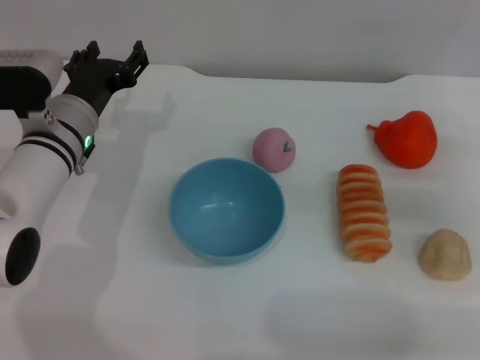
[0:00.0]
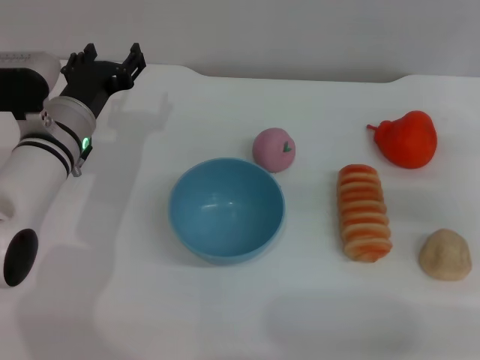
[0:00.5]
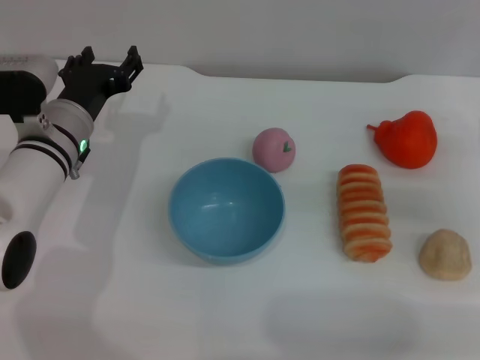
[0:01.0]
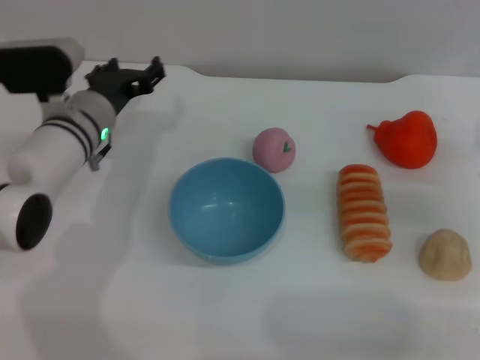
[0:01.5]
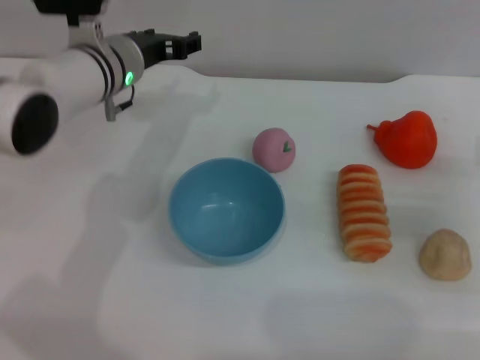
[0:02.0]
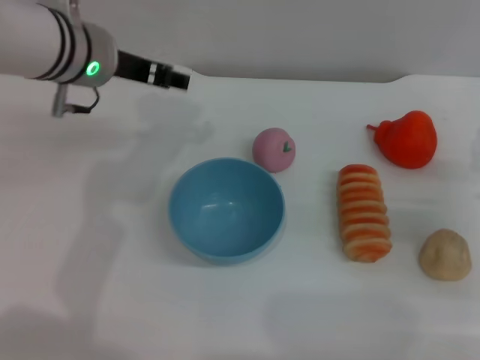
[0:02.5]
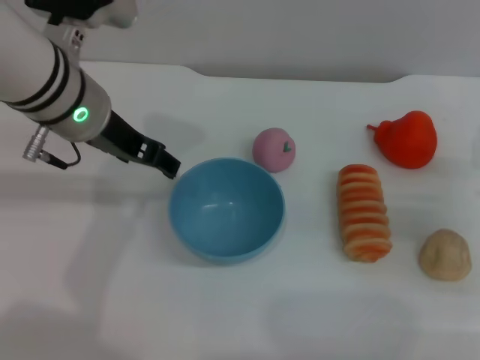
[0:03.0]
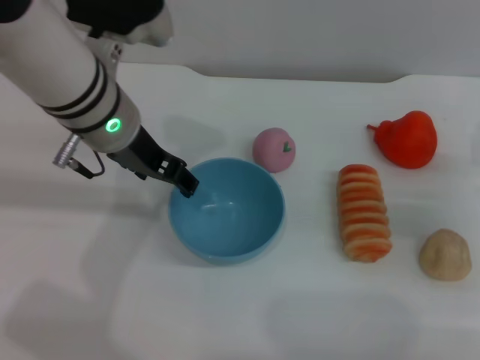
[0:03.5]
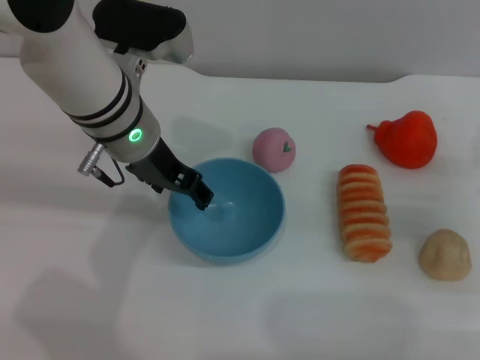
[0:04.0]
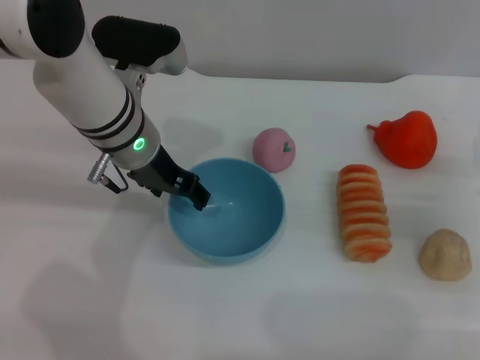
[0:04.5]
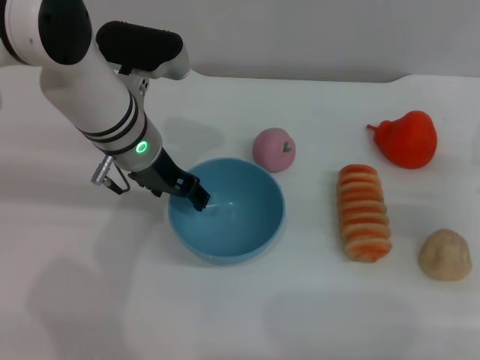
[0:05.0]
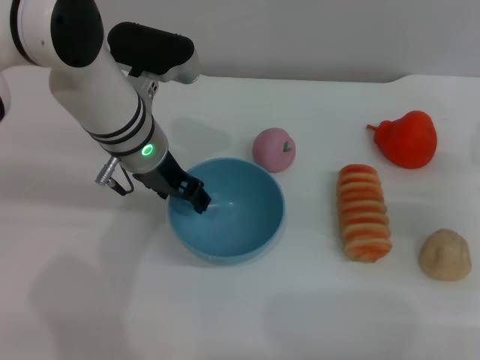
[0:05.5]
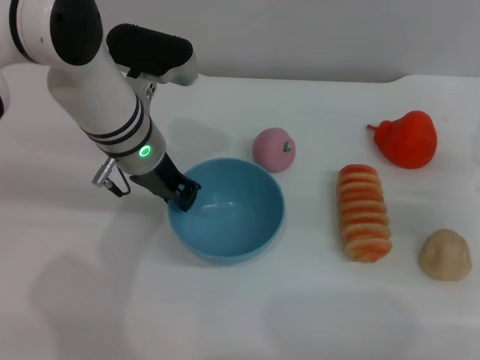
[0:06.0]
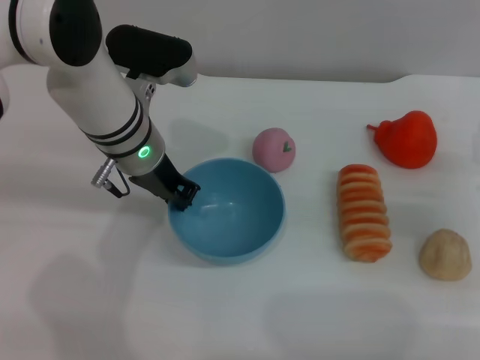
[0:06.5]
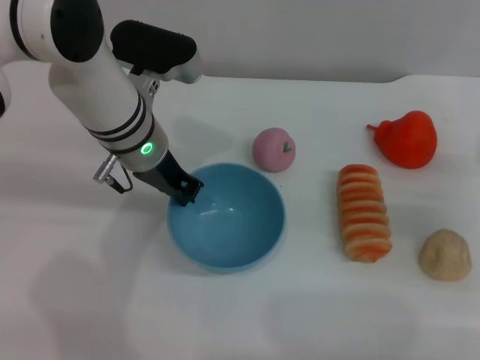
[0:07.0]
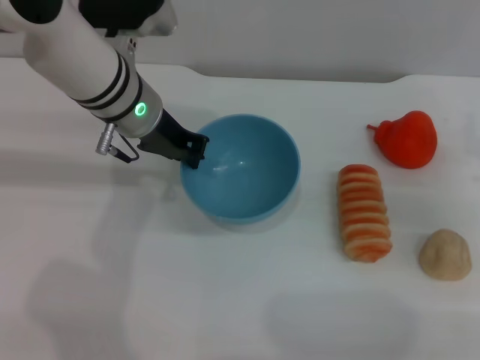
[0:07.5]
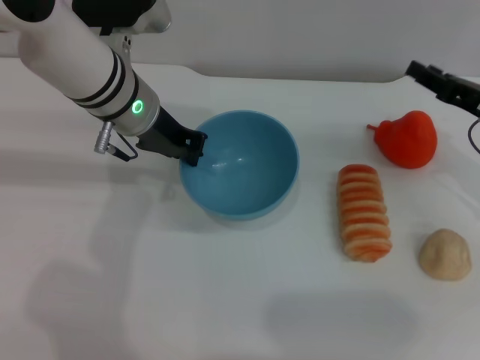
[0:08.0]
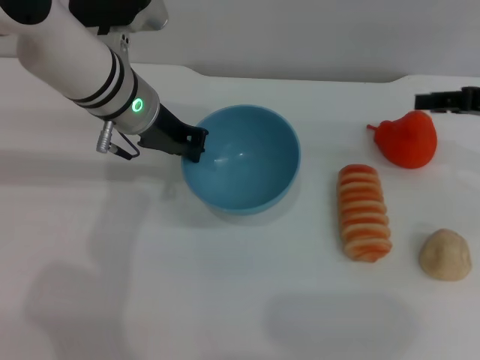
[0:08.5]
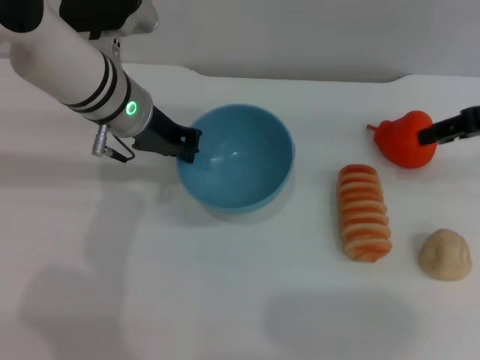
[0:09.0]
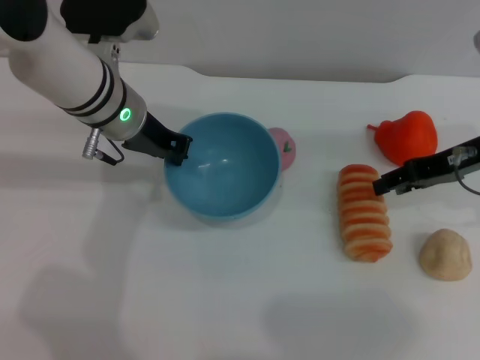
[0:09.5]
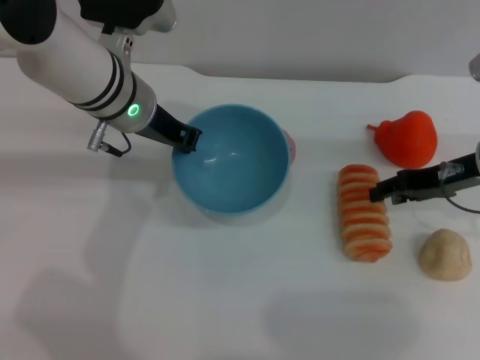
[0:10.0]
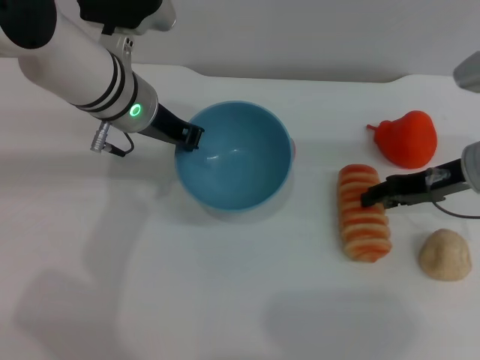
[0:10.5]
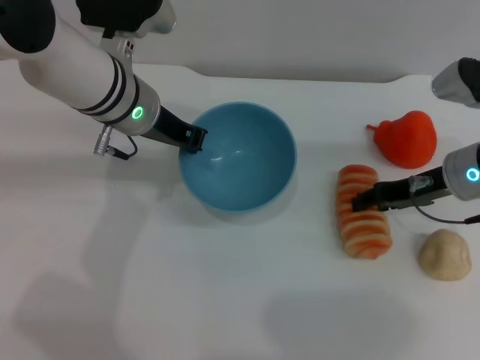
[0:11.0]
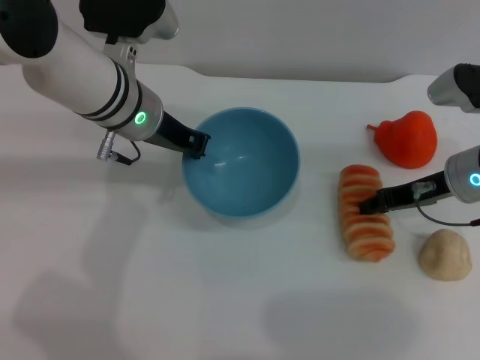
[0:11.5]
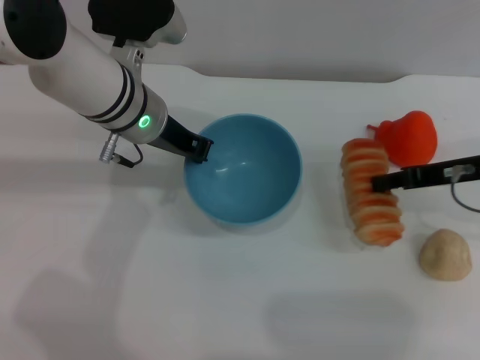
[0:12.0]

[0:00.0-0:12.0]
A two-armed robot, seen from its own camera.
Task of the whole recording: put the bread into the blue bowl and pour it out repeatedly.
Step, 0:00.0 to 0:07.5: Pick up the bowl with the left gripper.
0:00.0 to 0:02.0: The left gripper moves upward and forward, about 10 cm.
0:02.0 to 0:04.0: The left gripper goes about 5 cm backward.
0:04.0 to 0:06.0: The left gripper closes its fingers.
0:06.0 to 0:08.0: The right gripper changes place by about 5 cm. Meanwhile the left gripper closes up.
0:08.0 to 0:10.0: The right gripper reaches some 10 cm upward, then returns.
0:10.0 to 0:12.0: The right gripper closes.

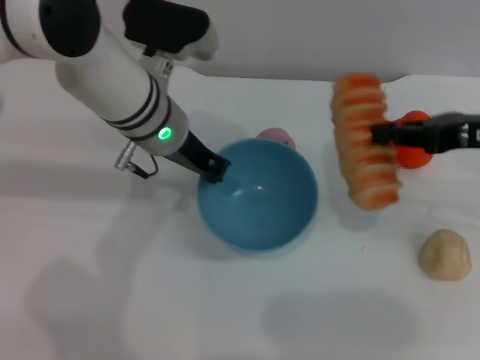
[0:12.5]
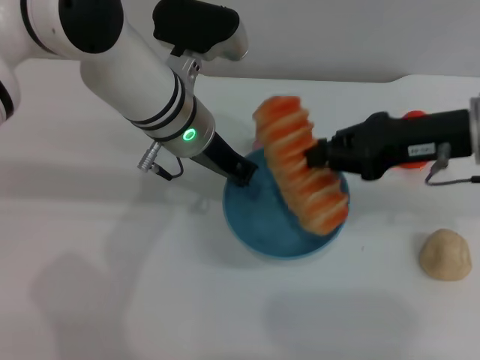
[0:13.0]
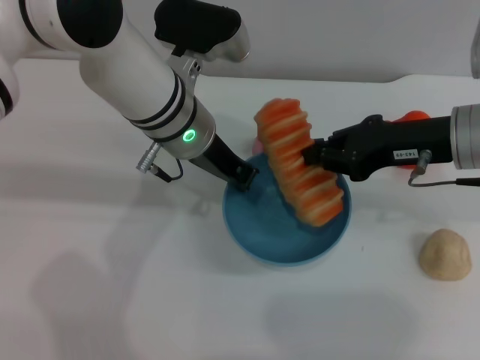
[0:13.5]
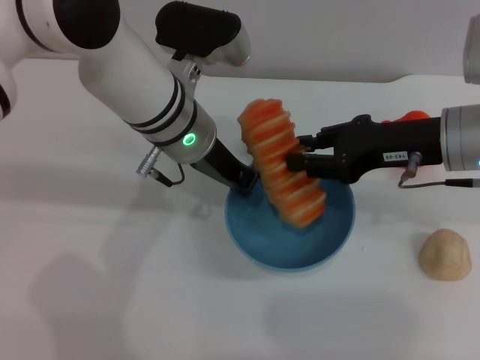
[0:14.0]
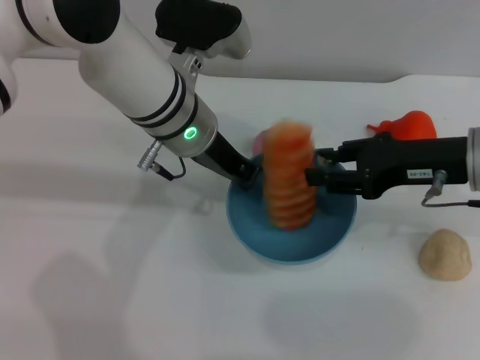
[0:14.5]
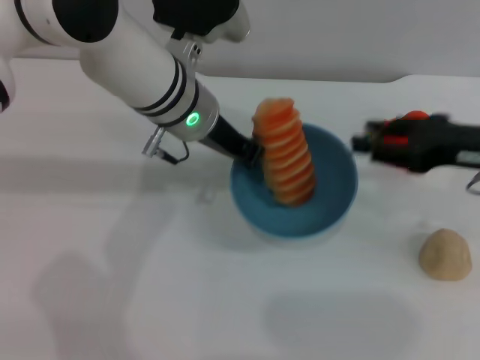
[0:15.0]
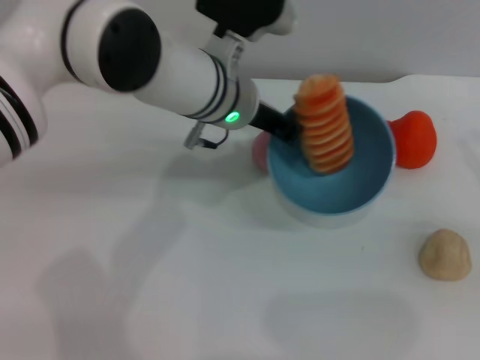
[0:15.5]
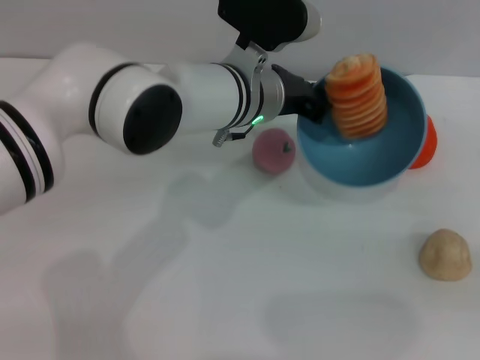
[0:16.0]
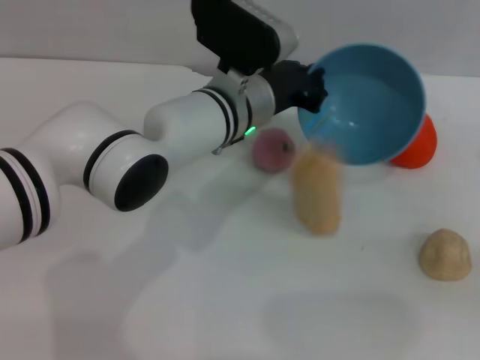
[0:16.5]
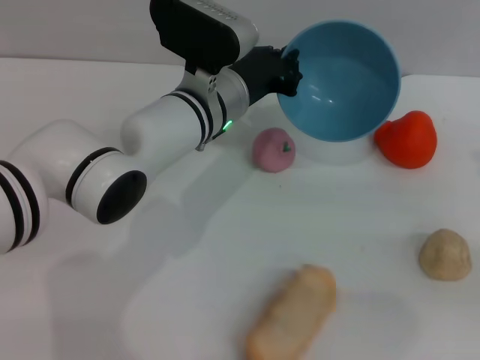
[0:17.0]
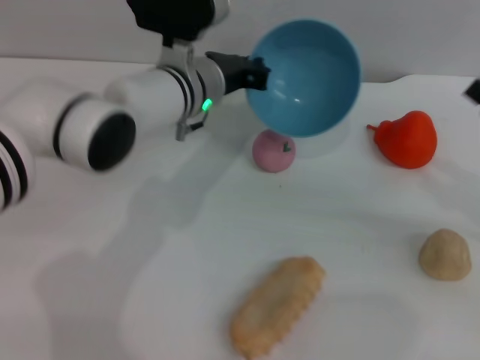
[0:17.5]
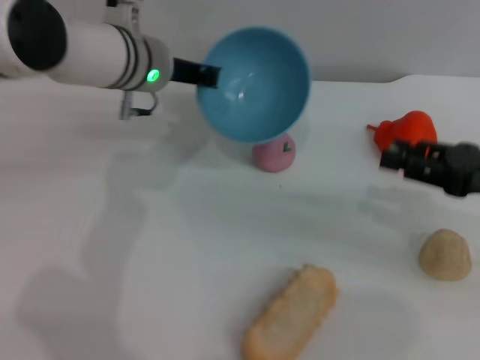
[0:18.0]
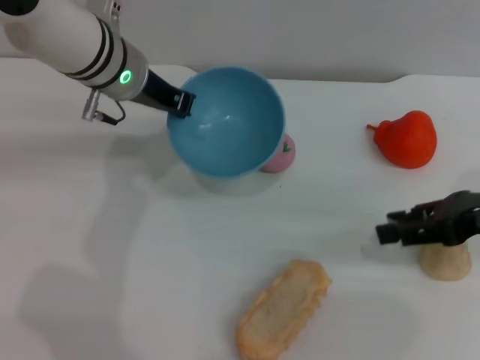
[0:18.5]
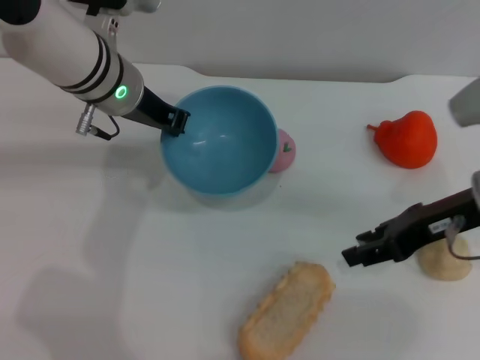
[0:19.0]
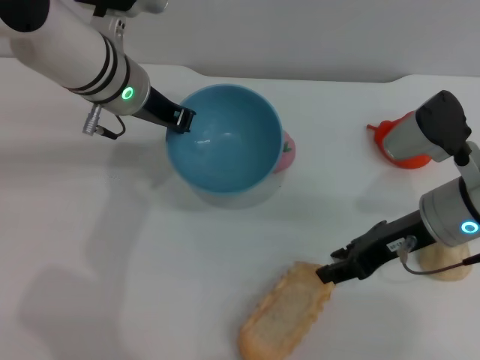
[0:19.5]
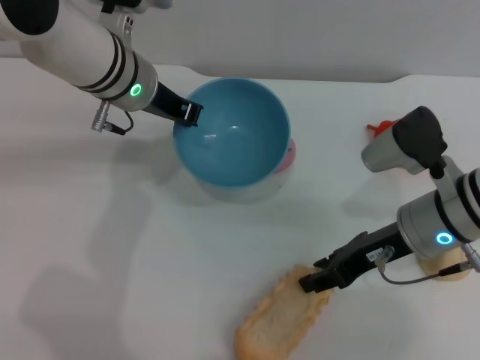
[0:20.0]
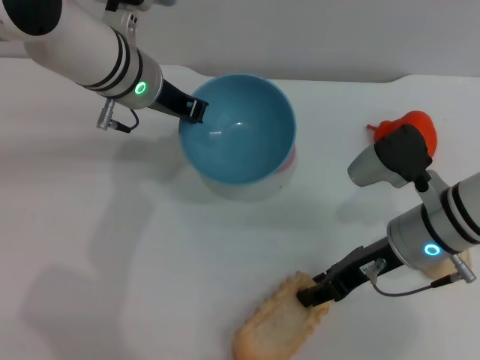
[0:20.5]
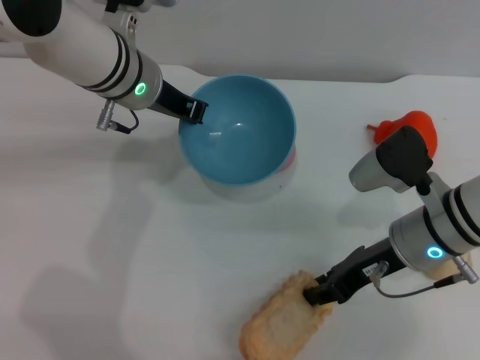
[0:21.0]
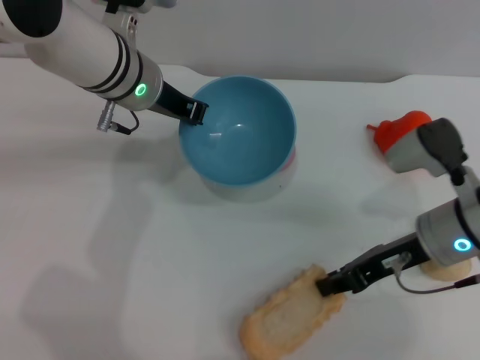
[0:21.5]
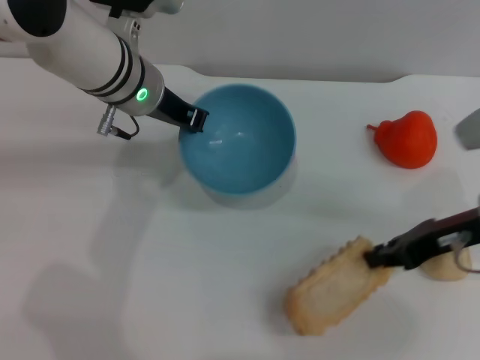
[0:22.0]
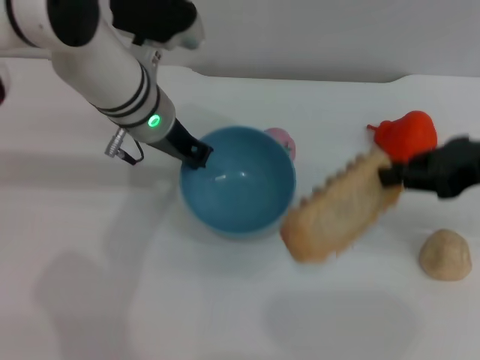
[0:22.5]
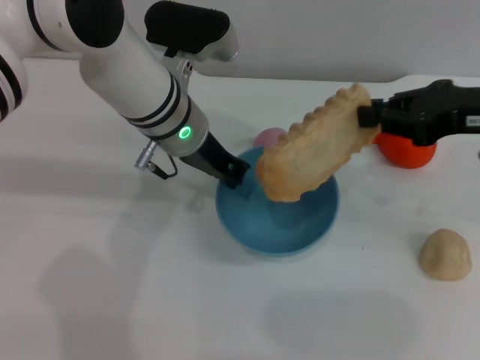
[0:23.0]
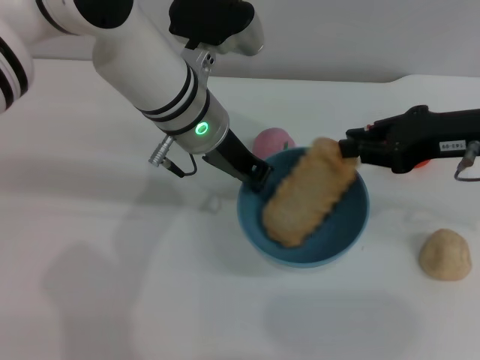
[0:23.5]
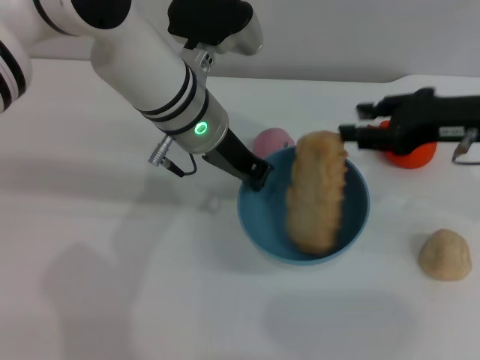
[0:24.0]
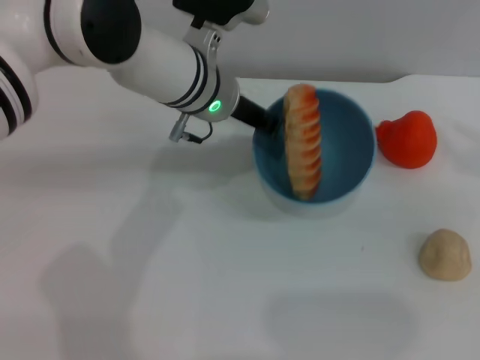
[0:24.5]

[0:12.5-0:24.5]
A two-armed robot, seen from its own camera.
Task of the whole recording: put the bread into the blue bowl and pour it out repeatedly.
Step, 0:12.5 to 0:15.0: Place the bread into the bowl.
Step, 0:15.5 to 0:17.5: Pour the bread out of the bowl.
Step, 0:18.5 to 0:22.0: Pick up the bread with the right gripper.
Step, 0:22.5 to 0:24.0: Place the bread into the bowl.
0:12.5 to 0:14.5: The right gripper shifts roughly 5 cm to the left, and opens.
0:14.5 to 0:16.5: The right gripper goes roughly 15 cm to the right and backward, while the left gripper changes place by roughly 5 cm.
0:16.5 to 0:18.5: The right gripper is displaced to the left, upward and forward by about 10 cm, while the left gripper travels to the left and upward by approximately 15 cm.
0:18.5 to 0:20.5: The right gripper travels to the left and downward by roughly 15 cm.
0:20.5 to 0:22.5: The right gripper heads upward and to the right, covering approximately 15 cm, and closes.
0:22.5 to 0:24.5: The grippers both shift to the right by about 5 cm. The right gripper opens.

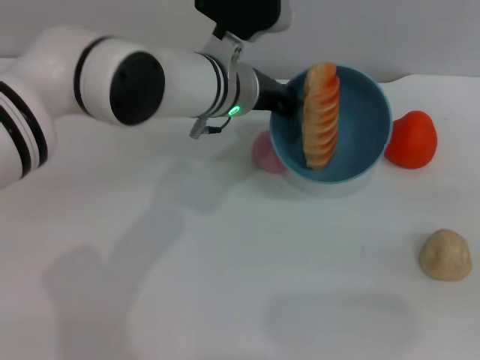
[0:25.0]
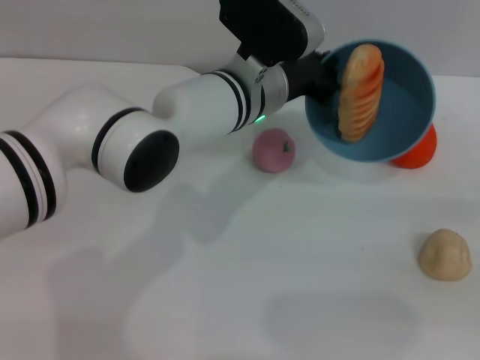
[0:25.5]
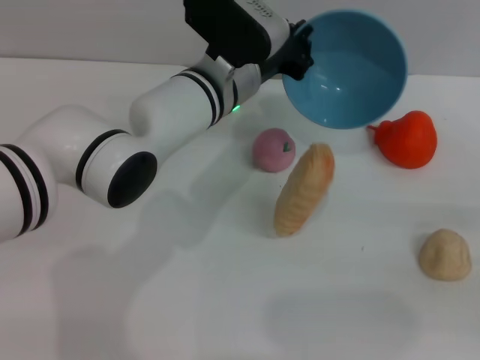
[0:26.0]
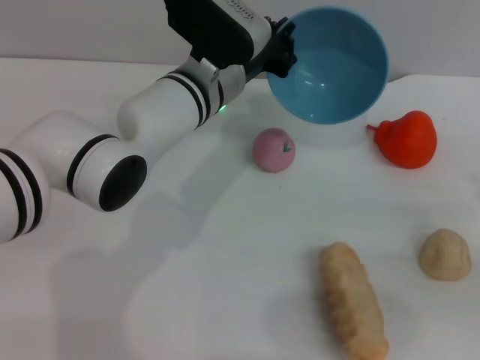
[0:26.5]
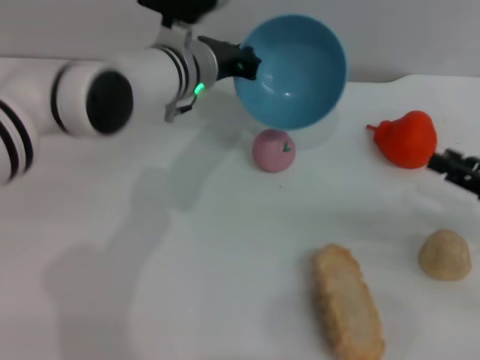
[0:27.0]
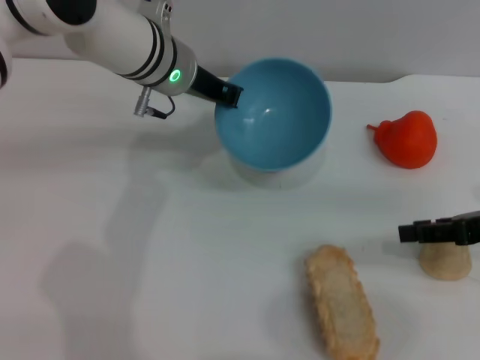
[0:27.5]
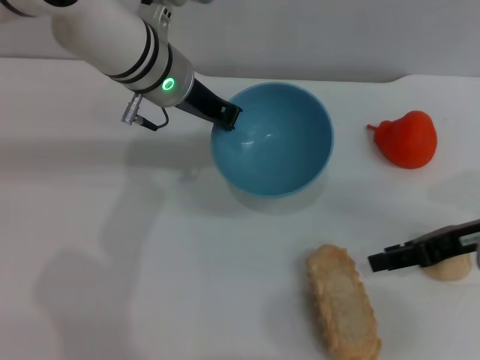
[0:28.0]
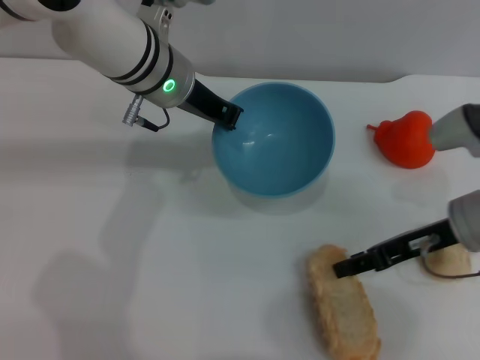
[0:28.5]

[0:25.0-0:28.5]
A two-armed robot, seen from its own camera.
Task of the whole recording: put the bread into the blue bowl and pour it out repeatedly.
Step, 0:25.0 to 0:27.0: Pour the bread out of the bowl.
0:25.0 to 0:27.0: The right gripper moves to the left, some 5 cm. The left gripper moves about 5 cm.
0:27.0 to 0:28.5: The right gripper shifts about 10 cm to the left and forward. The left gripper moves approximately 5 cm.
